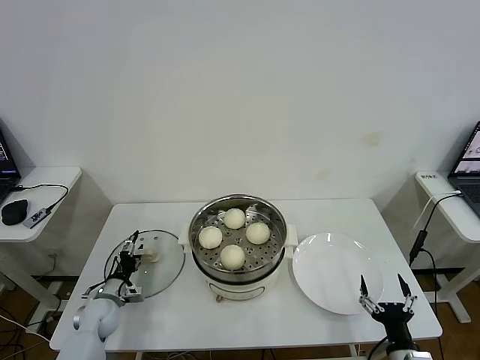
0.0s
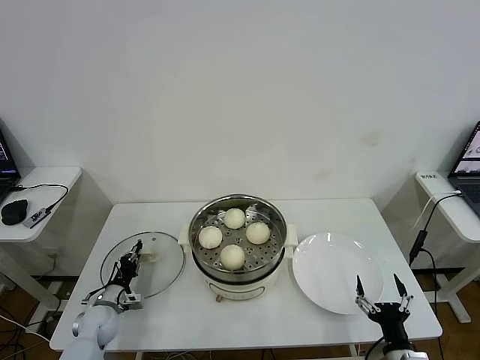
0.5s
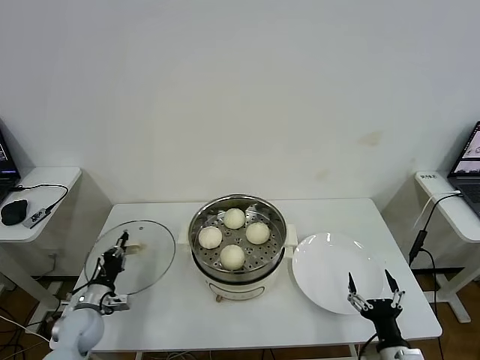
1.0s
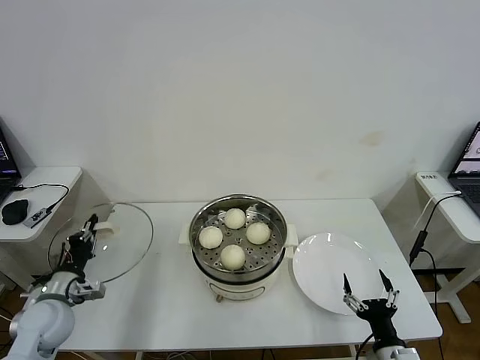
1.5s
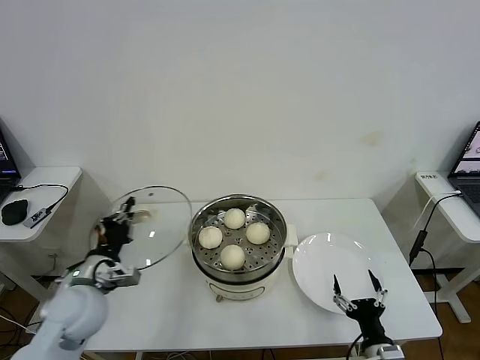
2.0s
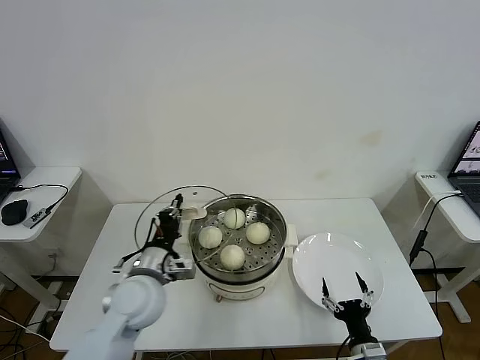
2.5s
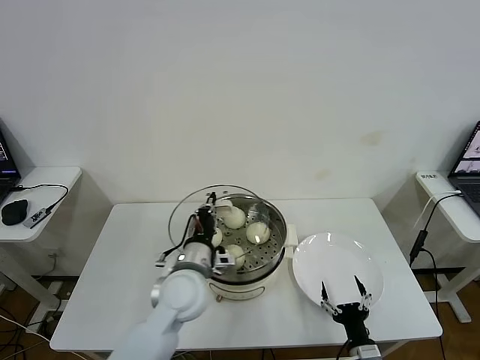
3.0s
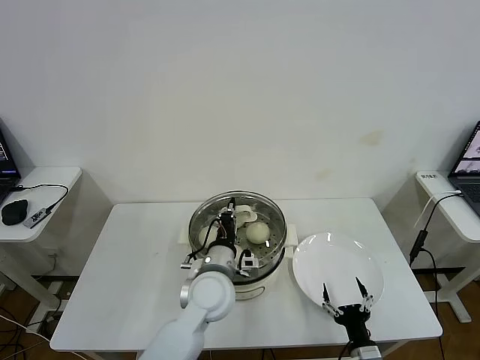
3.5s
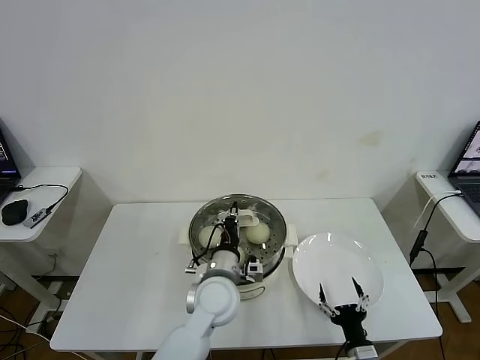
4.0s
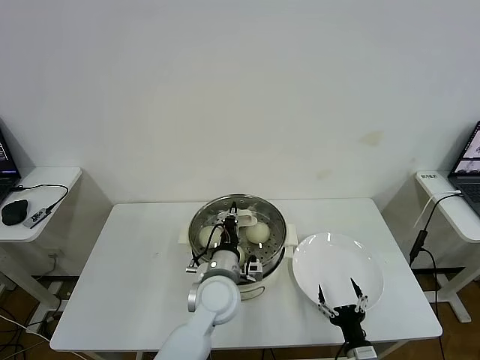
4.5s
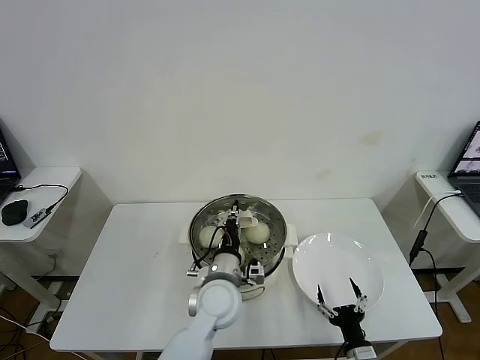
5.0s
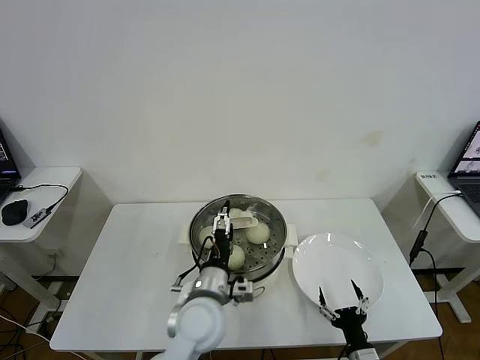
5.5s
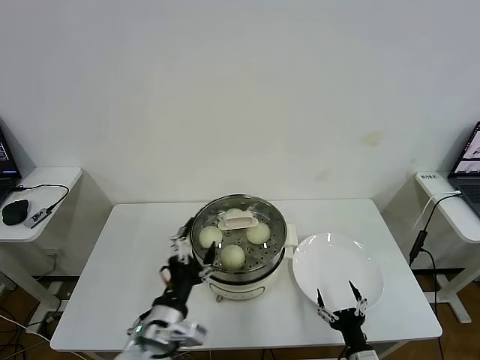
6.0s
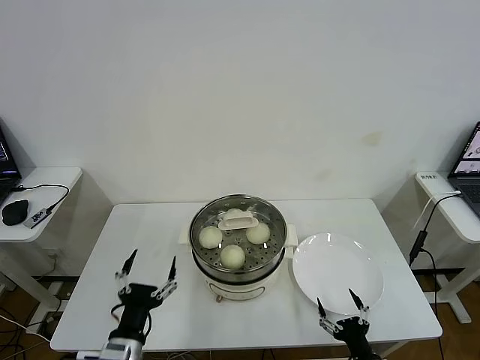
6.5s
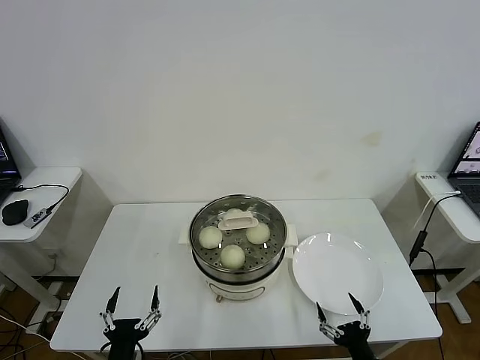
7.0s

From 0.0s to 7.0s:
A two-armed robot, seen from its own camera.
Task of the whole recording: take steamed baozi put them in steamer then cover it.
Step, from 1.0s to 5.0s: Place the pot lid on the steamer with left gripper.
From 0.0s to 2.0s: The left gripper goes some 20 cm upward, and closes its fingers.
From 2.0s to 3.5s: The left gripper moves to the right, about 25 cm.
From 3.5s to 5.0s: The grippers stay close to where they were, moving slightly.
From 5.0s to 7.0s: The right gripper shifts by some 5 cm. Meanwhile the left gripper is displaced backward and to the left by roughly 30 cm, and opens up.
